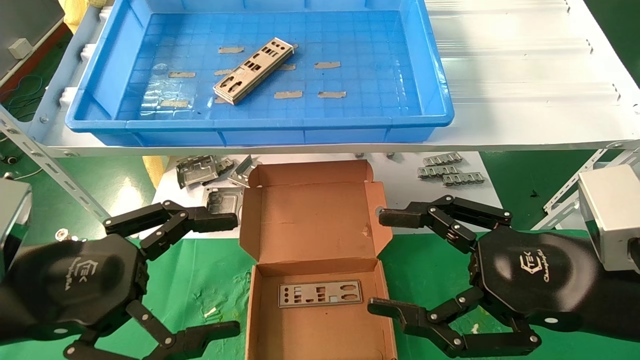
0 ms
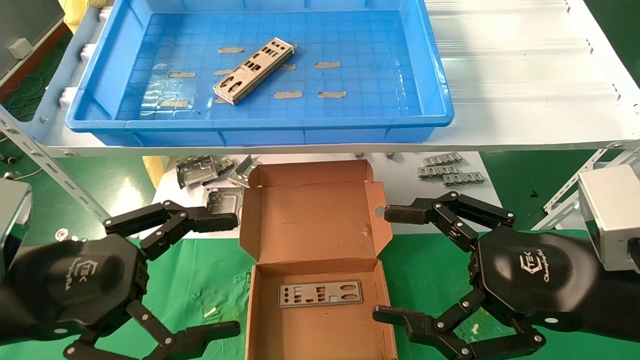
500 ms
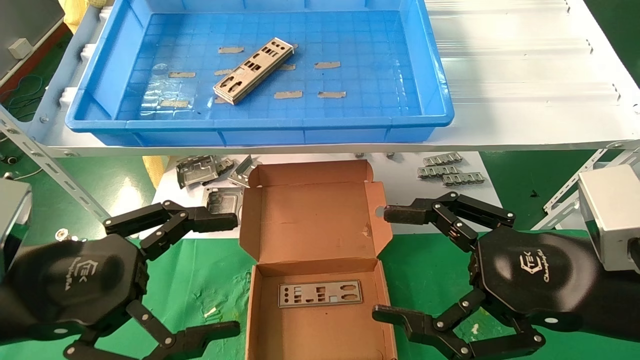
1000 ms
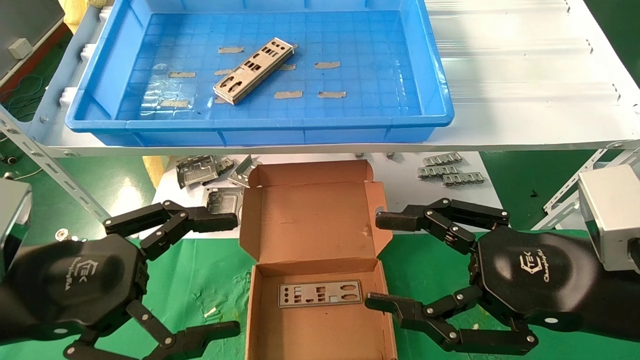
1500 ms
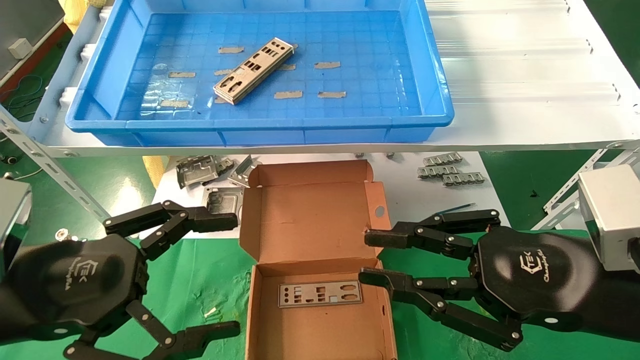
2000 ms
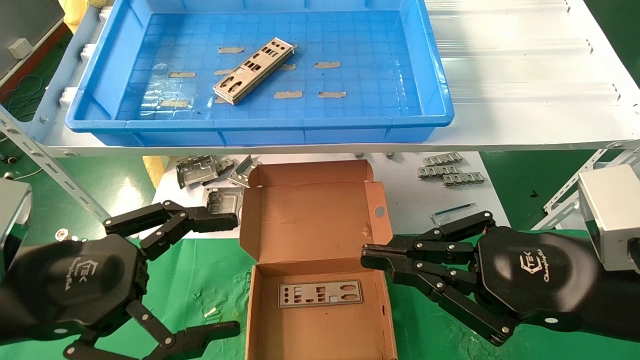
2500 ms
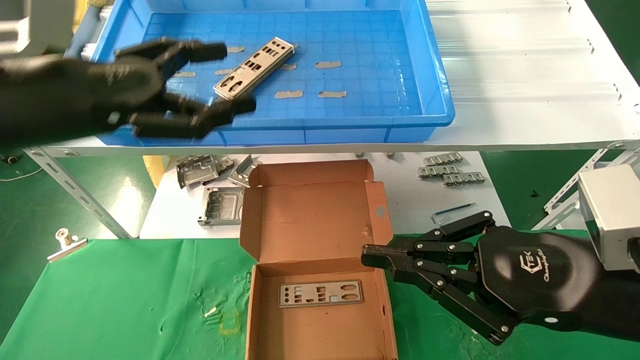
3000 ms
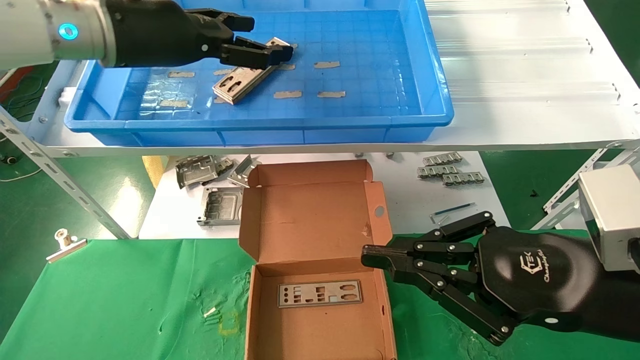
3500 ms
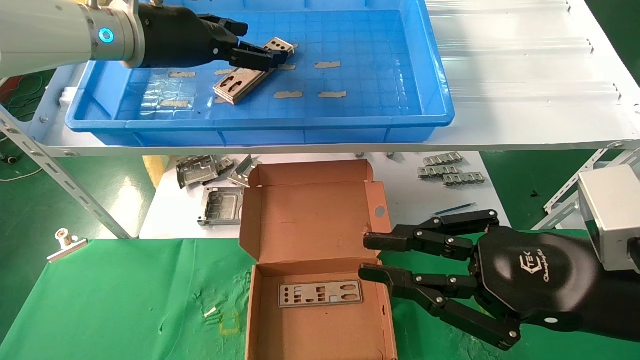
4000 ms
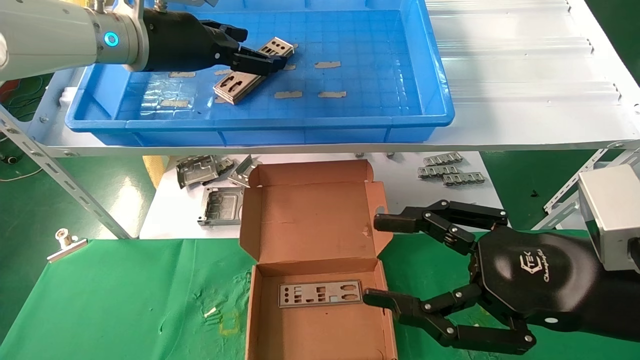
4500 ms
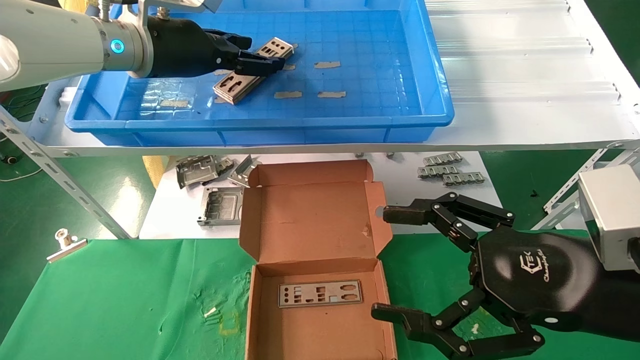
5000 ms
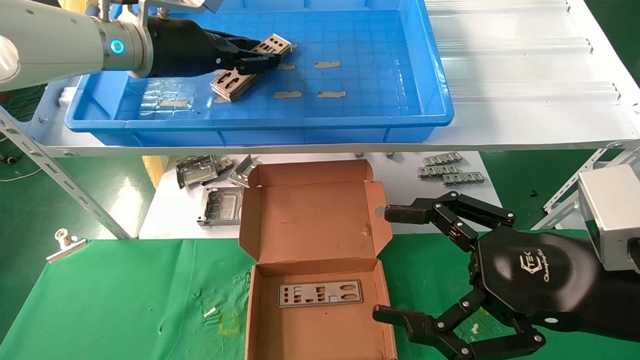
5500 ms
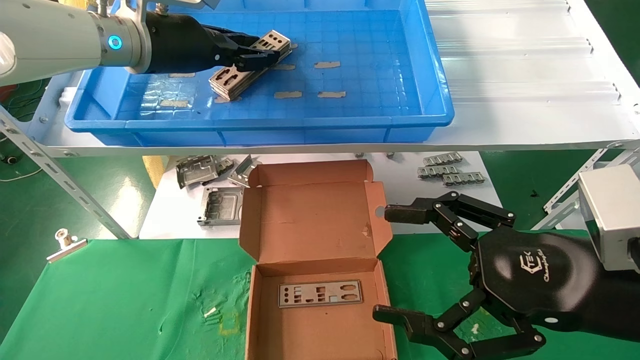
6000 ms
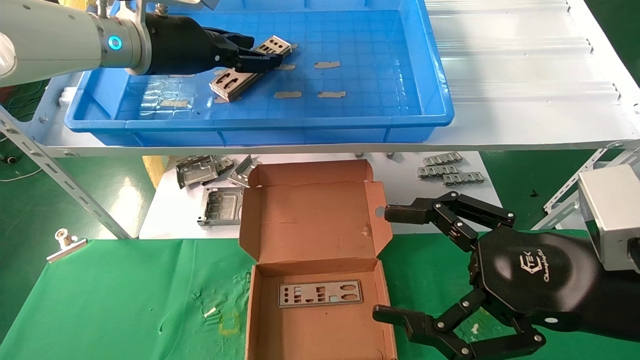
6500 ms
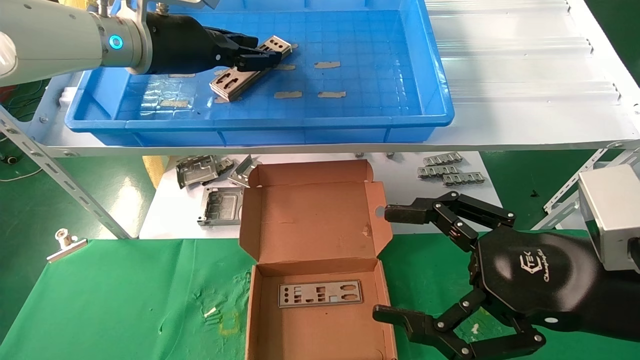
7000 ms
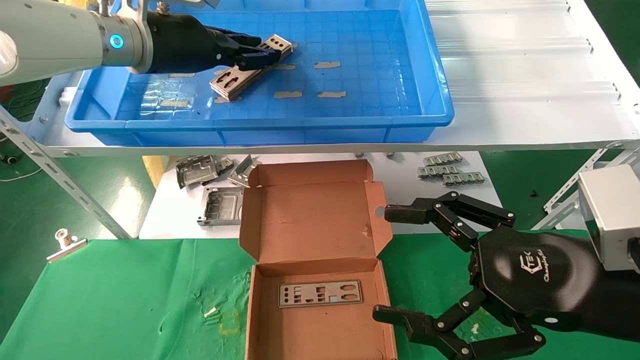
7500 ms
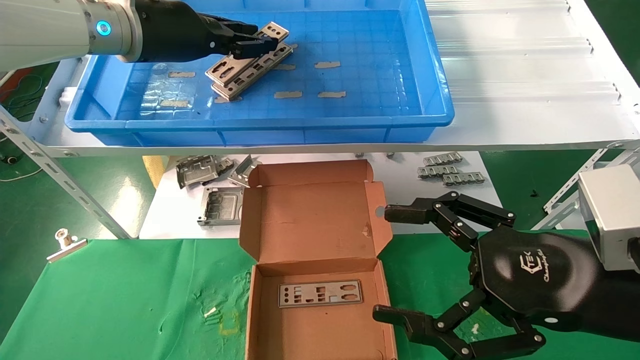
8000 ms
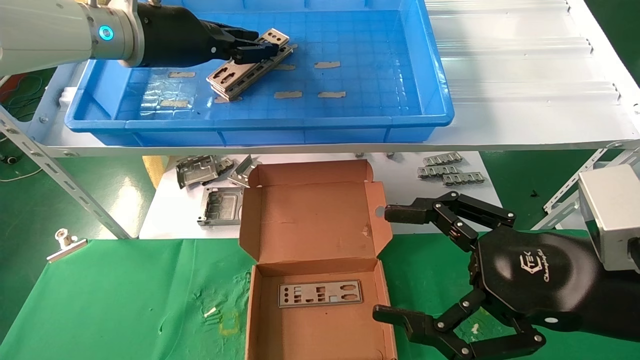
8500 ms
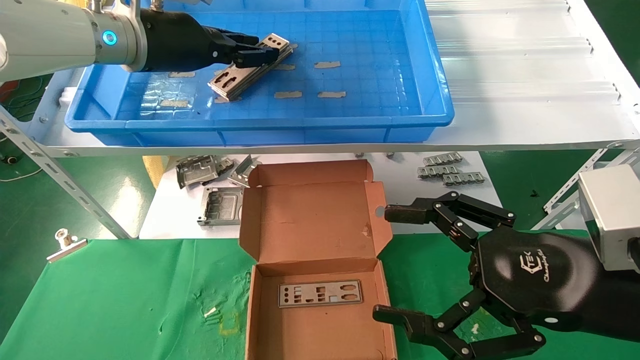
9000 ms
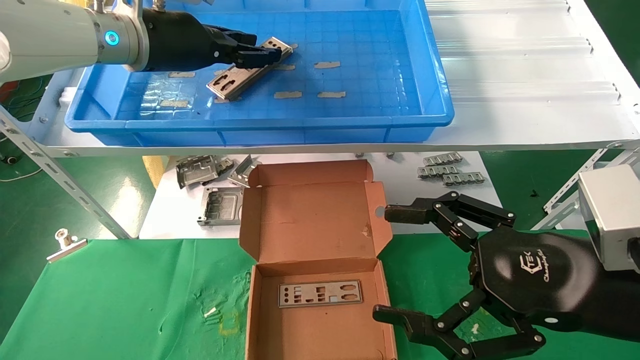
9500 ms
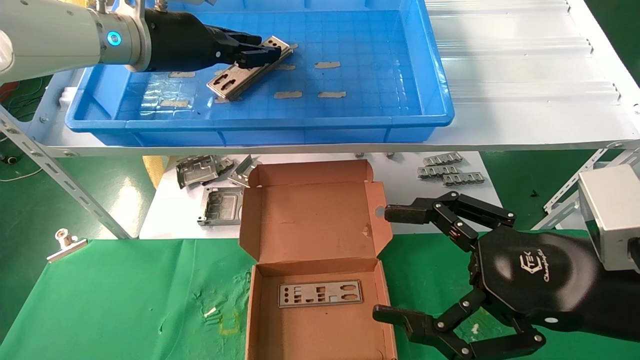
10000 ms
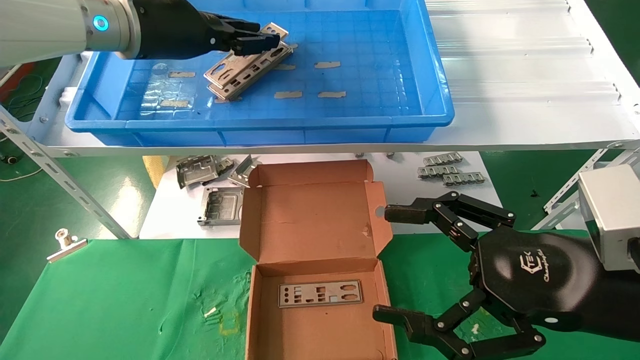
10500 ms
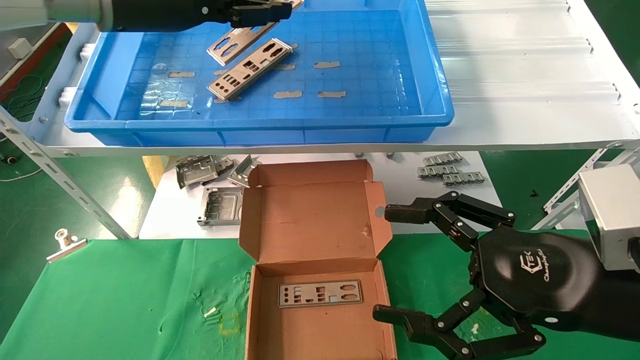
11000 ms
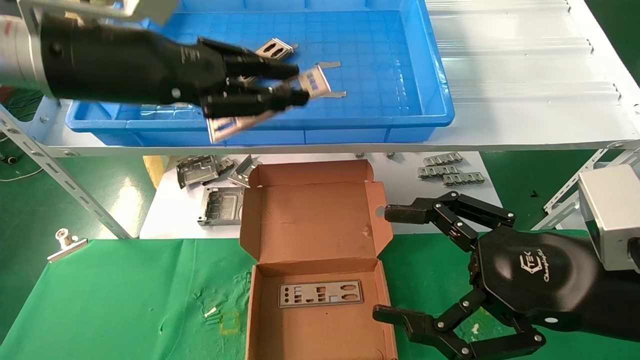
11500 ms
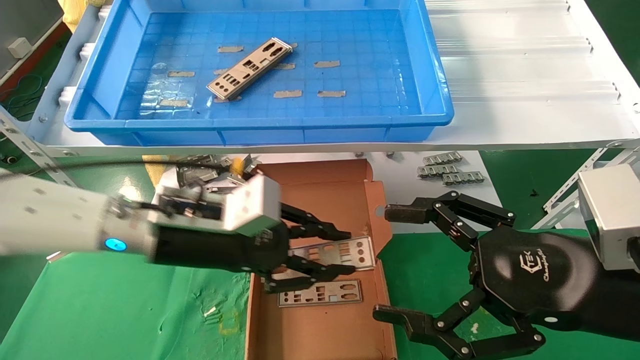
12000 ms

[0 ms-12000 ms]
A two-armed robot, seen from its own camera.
Task of the whole recording: pick up the parts on the tray and put them in the cardboard box.
Step, 3000 ms to 10000 ms: Pick up the IO bracket from the container box.
0 ms to 2000 ms: The right gripper closes its fingers.
2000 ms to 4000 ms: The left gripper heads forward and upward, covering about 30 cm.
4000 ms to 6000 ms: The left gripper closes; the right gripper opens.
6000 ms to 8000 ms: The grippers move only a little.
8000 ms to 10000 ms: The two grippers keep their place.
10000 ms to 12000 ms: The left gripper travels downward and backward by roughly 20 cm.

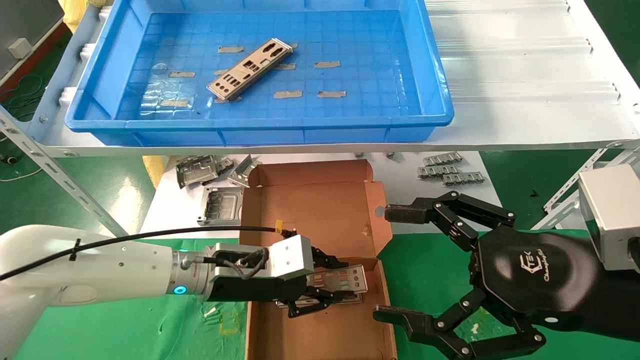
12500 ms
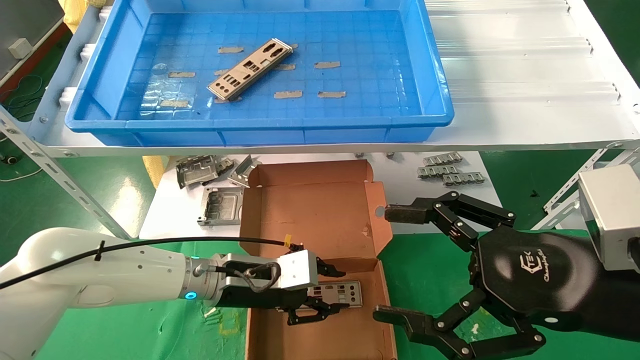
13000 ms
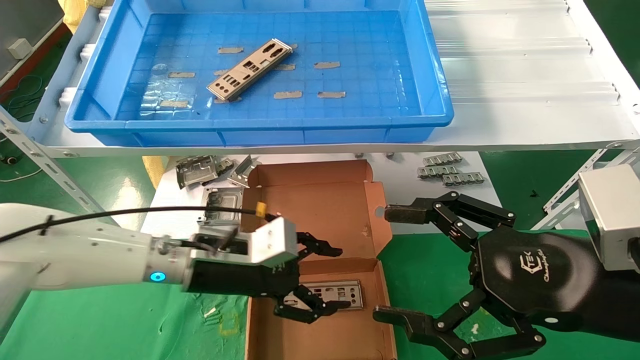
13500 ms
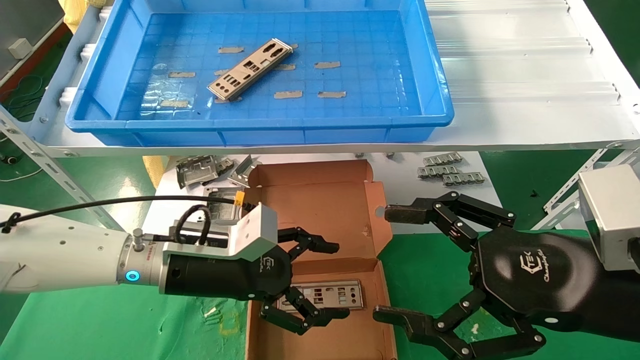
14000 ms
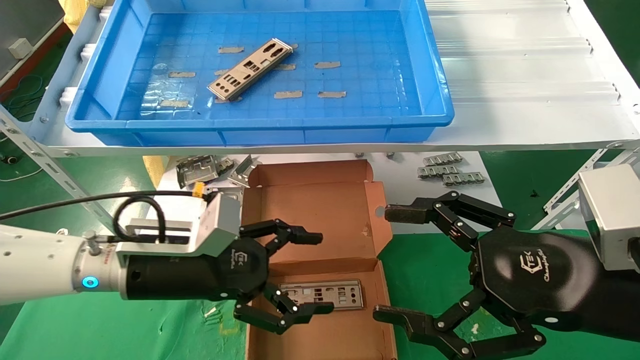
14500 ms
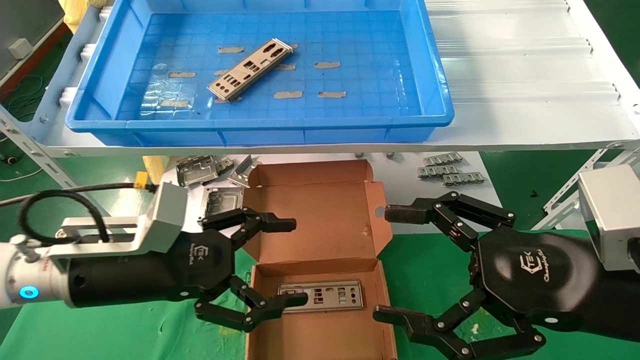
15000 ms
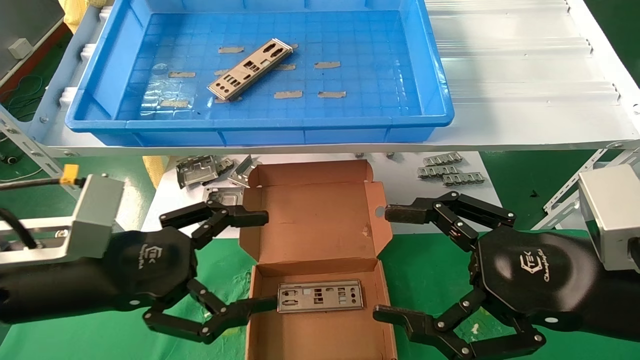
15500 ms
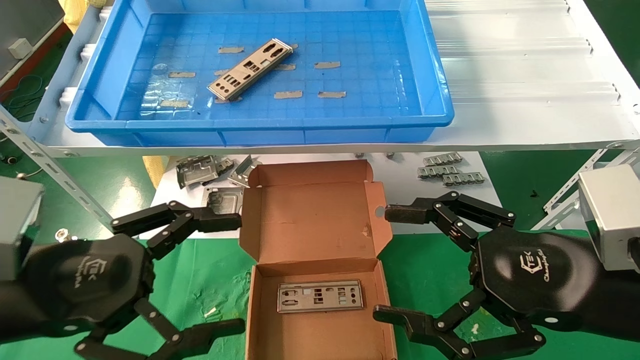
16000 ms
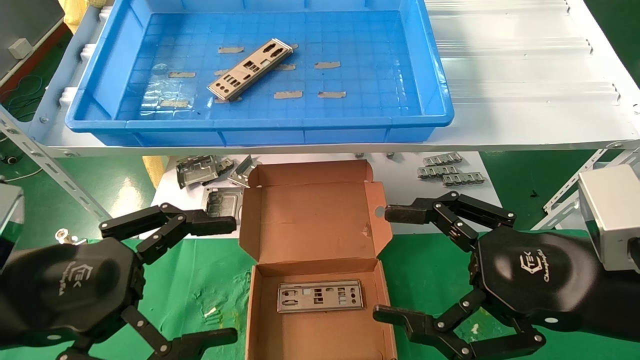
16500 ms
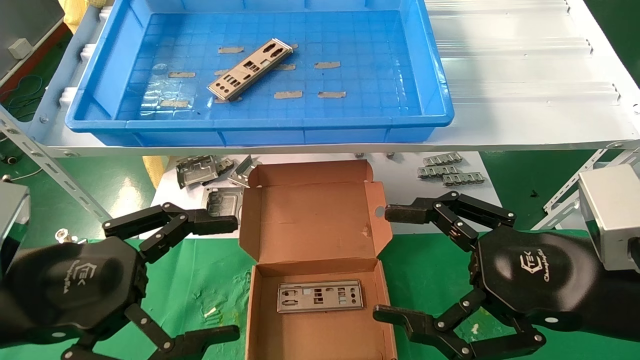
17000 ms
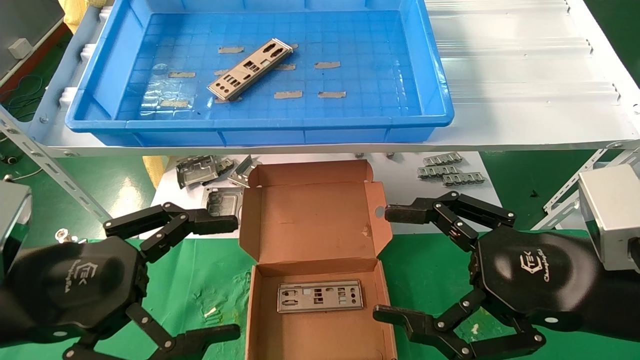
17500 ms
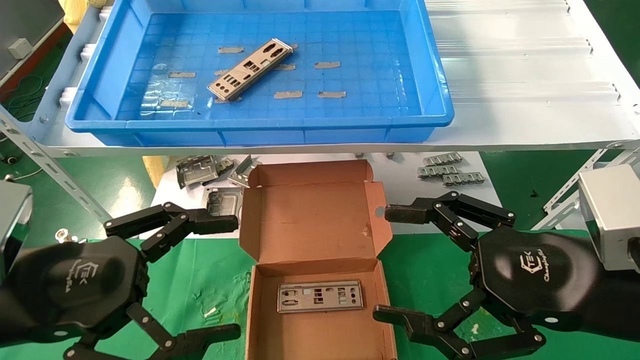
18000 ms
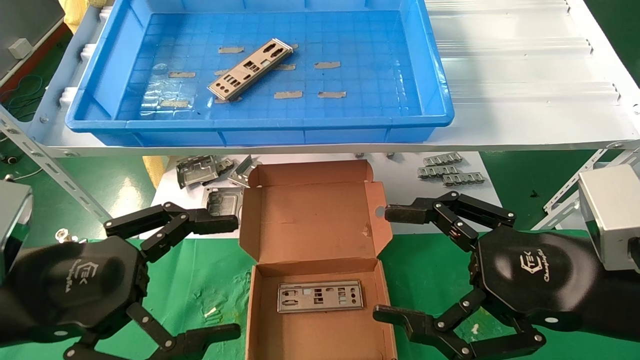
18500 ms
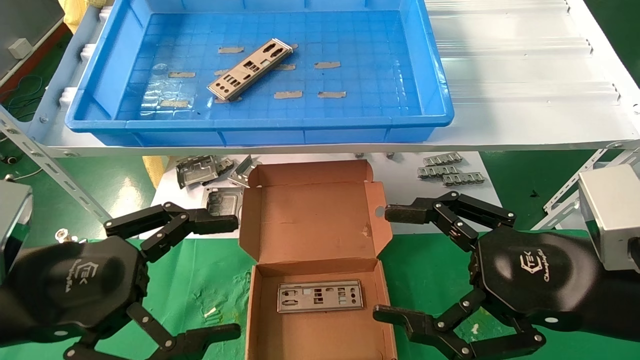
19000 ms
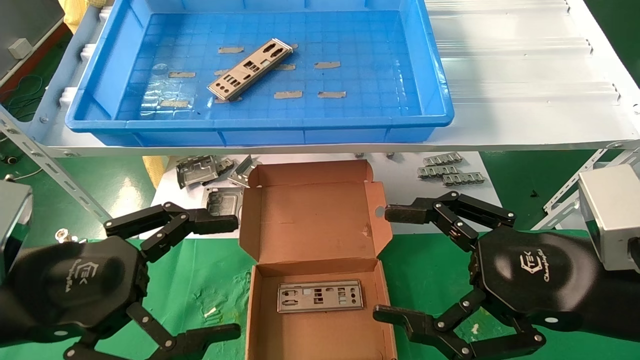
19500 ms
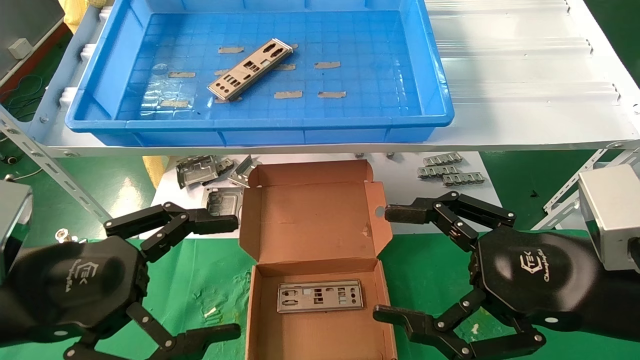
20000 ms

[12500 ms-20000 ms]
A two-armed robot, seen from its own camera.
Task of the whole recording: pick up the parts on the tray and put them in the cardboard box.
Step, 12500 ms to 20000 ms: Place the IO bracket into the ingredient slot.
12500 ms to 14500 ms: The left gripper goes approximately 10 cm backward and to the left, and opens up.
14500 ms to 16500 ms: The left gripper moves backward and to the left, about 15 cm.
16500 ms to 20000 ms: Both grippers stay about where they are.
